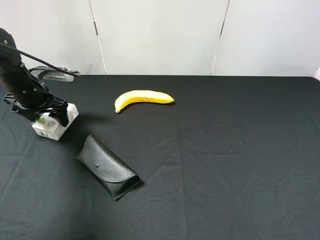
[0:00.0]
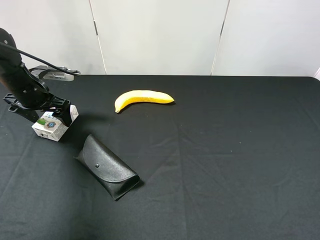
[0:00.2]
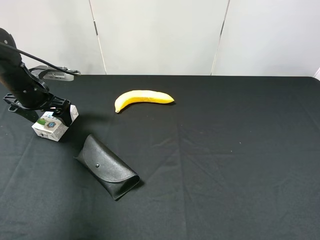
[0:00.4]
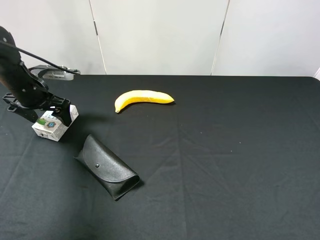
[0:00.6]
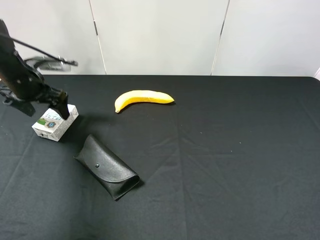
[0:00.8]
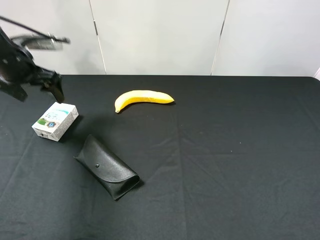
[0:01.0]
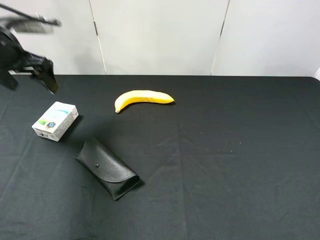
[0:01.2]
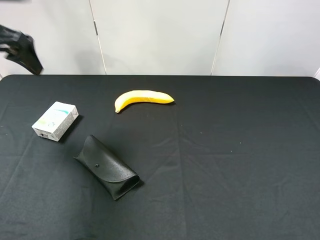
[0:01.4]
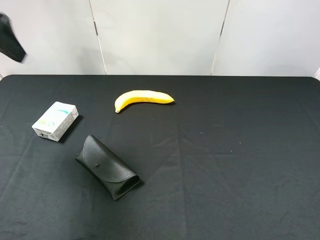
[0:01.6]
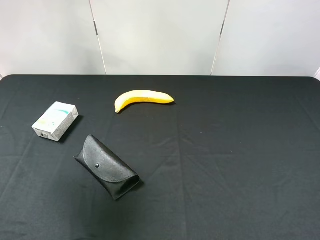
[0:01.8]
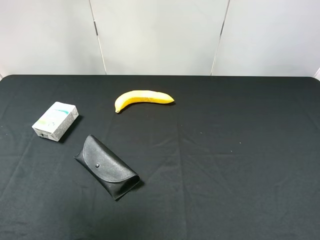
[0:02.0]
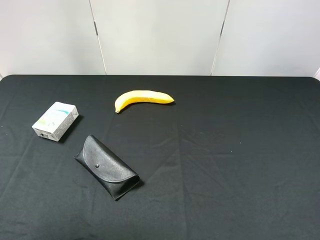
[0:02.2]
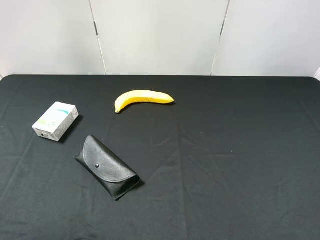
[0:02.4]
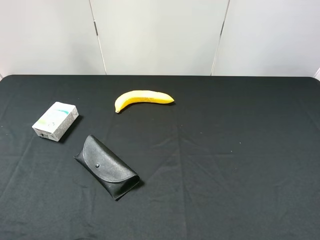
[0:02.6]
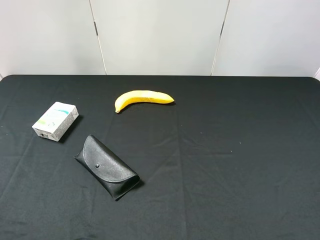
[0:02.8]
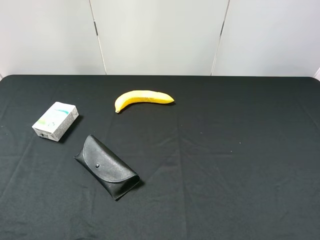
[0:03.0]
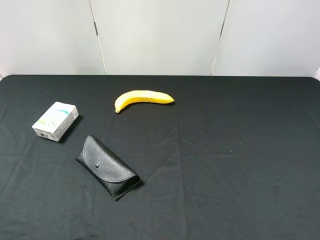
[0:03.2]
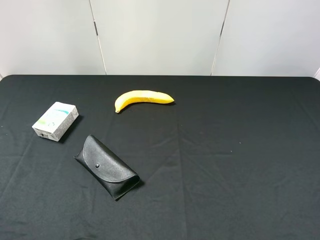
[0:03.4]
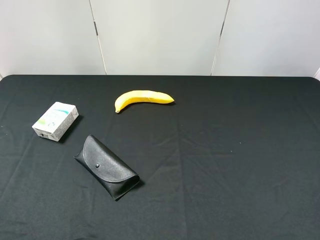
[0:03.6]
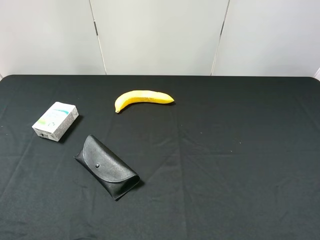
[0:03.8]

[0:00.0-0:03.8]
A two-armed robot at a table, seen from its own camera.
Task of the whole recording: use the right gripper to pick up the item and transfer it from the right gripper to the left gripper.
0:00.0 to 0:01.2: The left gripper is displaced upward by about 10 cm.
0:01.2 to 0:02.6: The left gripper shifts some 30 cm backward.
